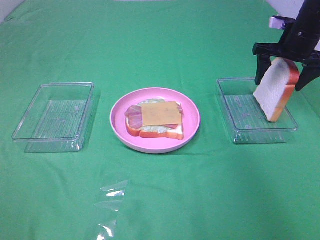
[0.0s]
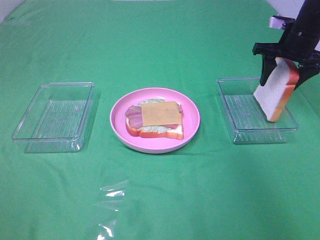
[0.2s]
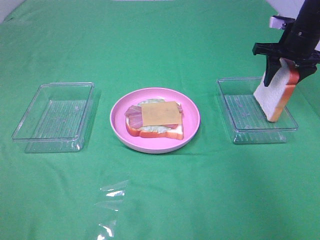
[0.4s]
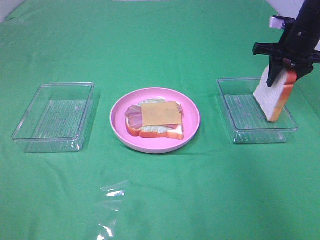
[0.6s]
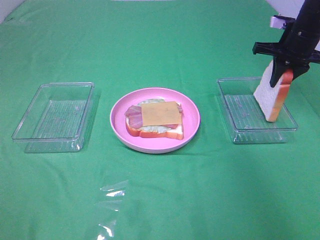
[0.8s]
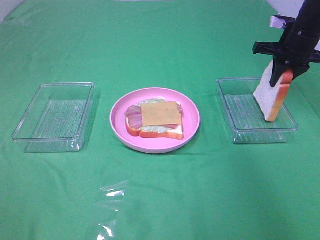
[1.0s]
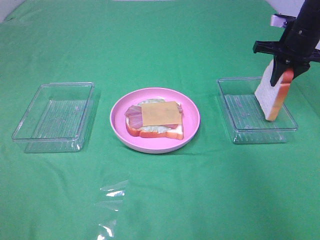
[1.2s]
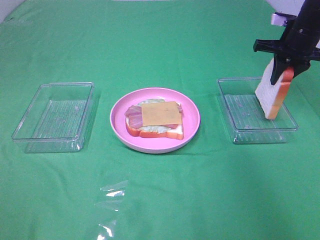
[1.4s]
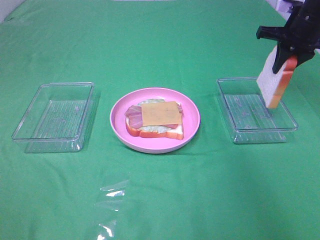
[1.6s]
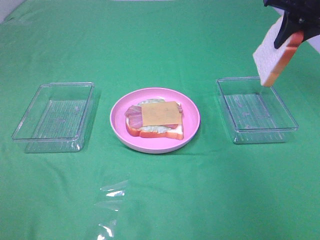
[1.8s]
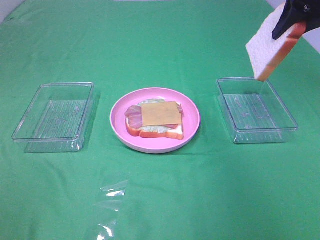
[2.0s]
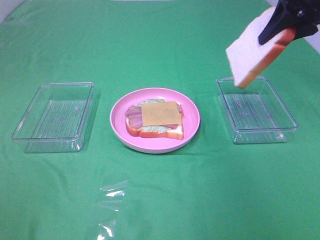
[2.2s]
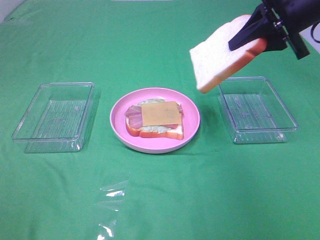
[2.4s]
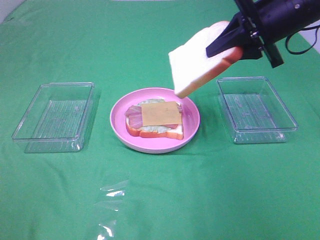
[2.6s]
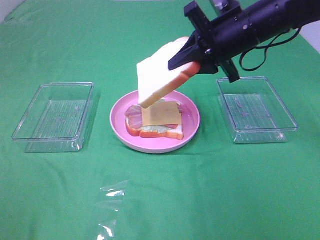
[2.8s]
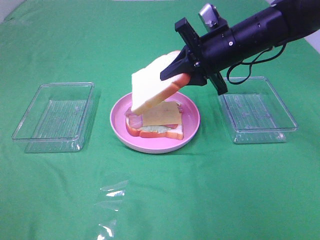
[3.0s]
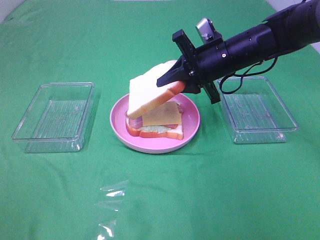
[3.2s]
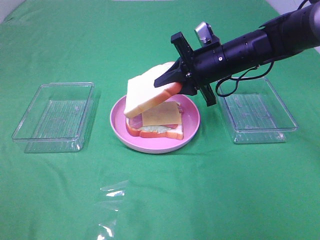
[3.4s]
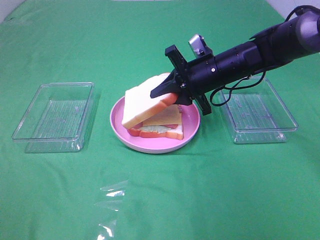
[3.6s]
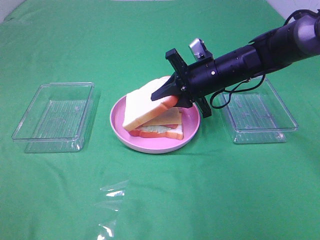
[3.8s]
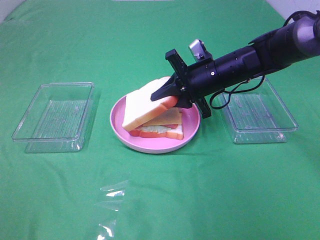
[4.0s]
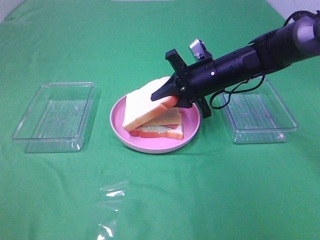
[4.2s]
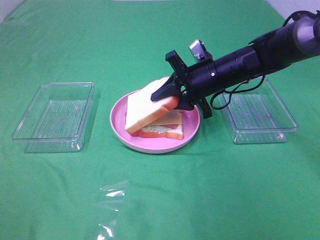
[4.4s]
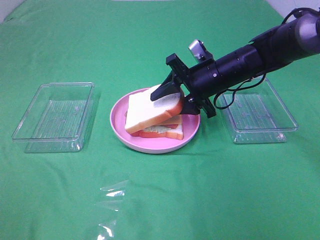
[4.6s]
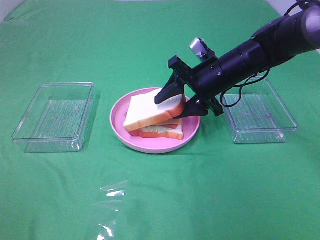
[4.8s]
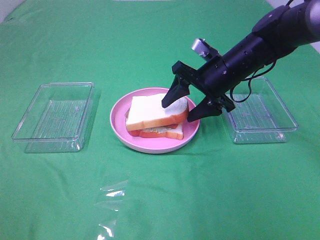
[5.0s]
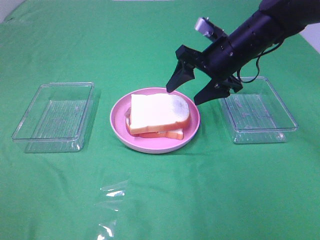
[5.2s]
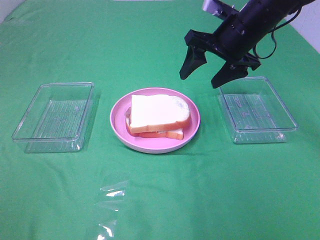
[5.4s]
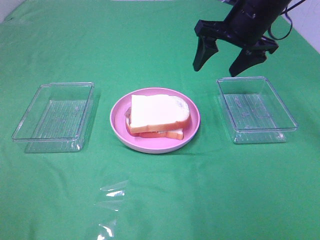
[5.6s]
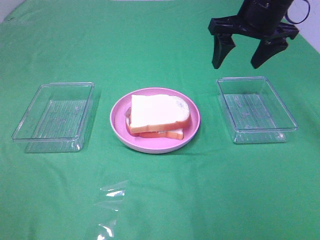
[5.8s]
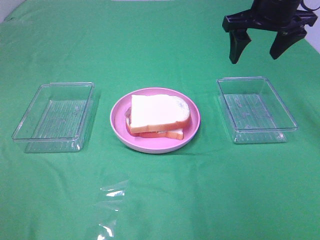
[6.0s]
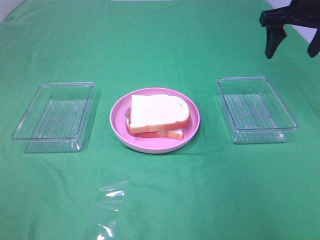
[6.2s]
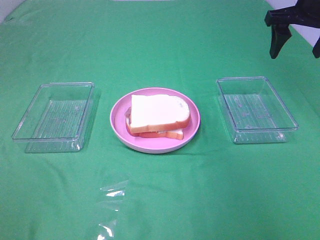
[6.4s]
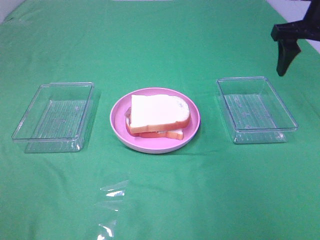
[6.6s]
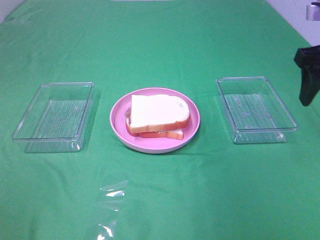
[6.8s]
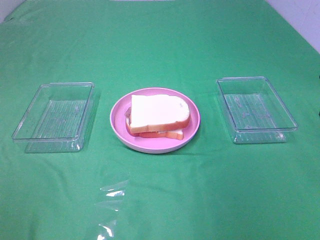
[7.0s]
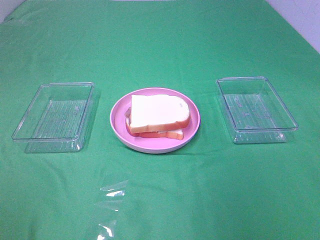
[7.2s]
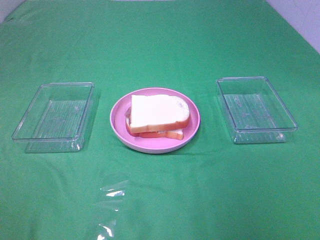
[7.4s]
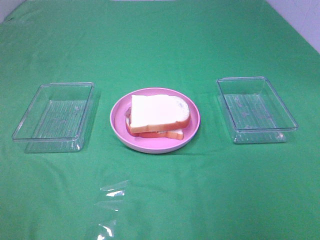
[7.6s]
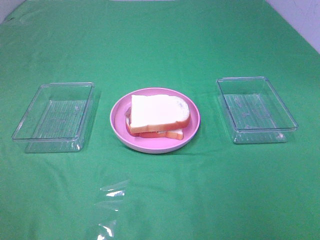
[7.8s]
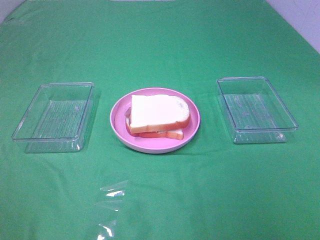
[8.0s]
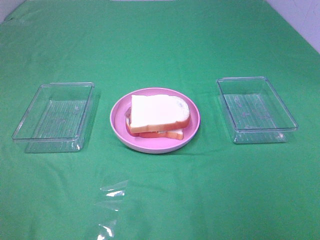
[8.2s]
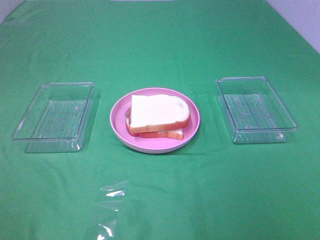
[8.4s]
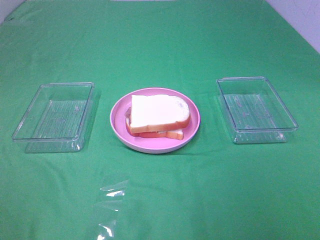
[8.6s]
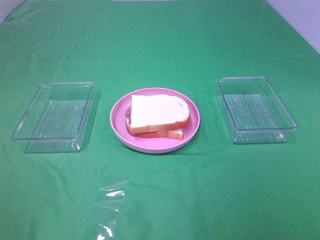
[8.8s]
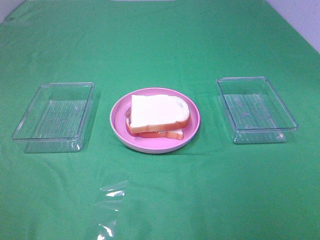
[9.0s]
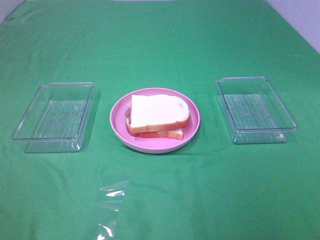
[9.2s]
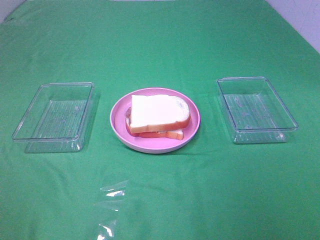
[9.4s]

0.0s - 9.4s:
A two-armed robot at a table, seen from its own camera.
Task of the whole recording: Make sandwiches.
Step, 1.0s - 5.0s: Right hand:place the bread slice on the cheese slice.
0.0s - 1.6s: The right gripper closes up.
1.6s - 3.2s: The right gripper travels to the left, backward and downward by approximately 20 cm.
3.2s - 4.8s: The right gripper opens its fingers.
4.8s - 6.2s: The right gripper heads upward and to the right, covering roughly 20 cm.
6.2s - 7.8s: The right gripper travels backward by roughly 35 cm.

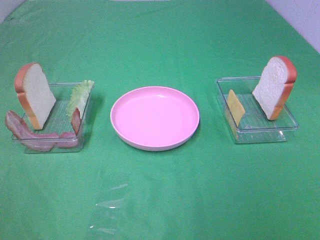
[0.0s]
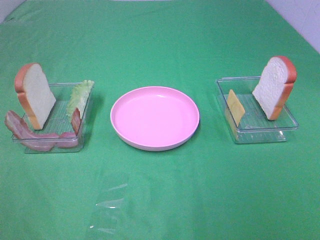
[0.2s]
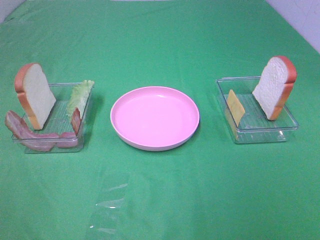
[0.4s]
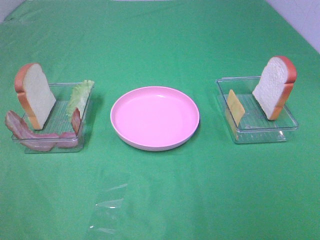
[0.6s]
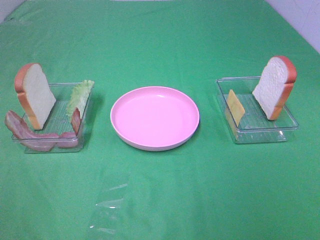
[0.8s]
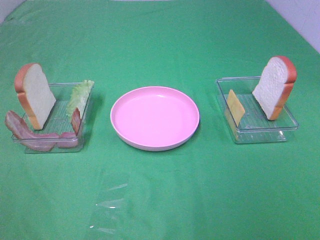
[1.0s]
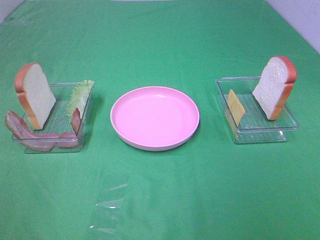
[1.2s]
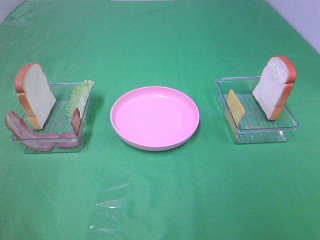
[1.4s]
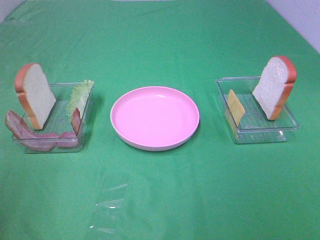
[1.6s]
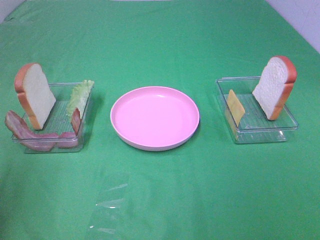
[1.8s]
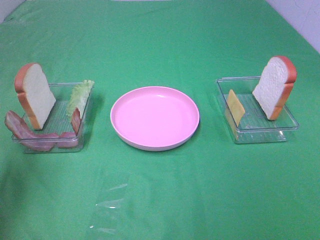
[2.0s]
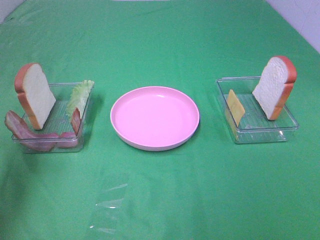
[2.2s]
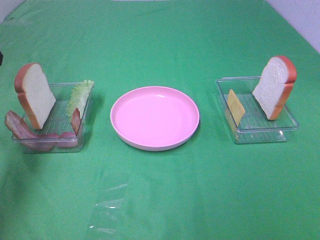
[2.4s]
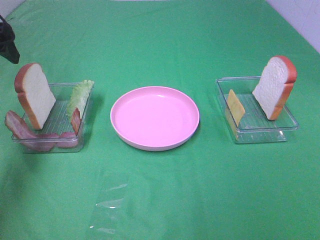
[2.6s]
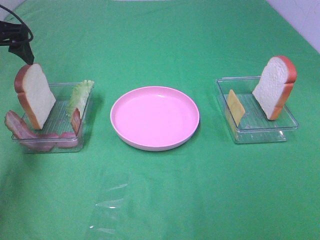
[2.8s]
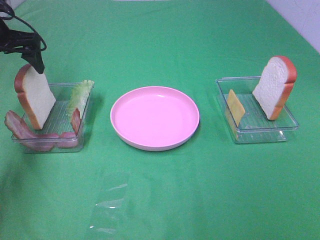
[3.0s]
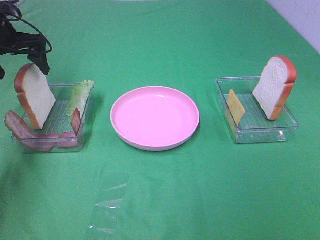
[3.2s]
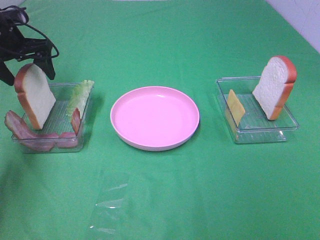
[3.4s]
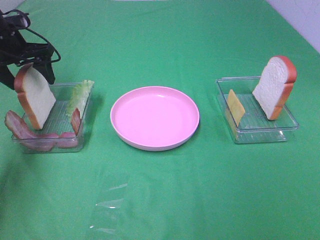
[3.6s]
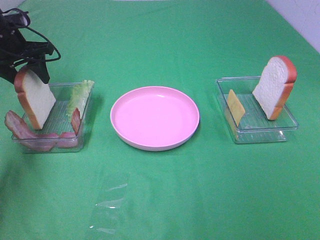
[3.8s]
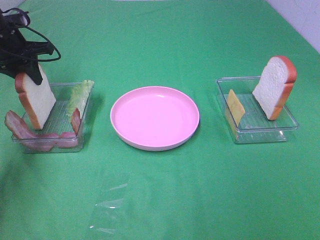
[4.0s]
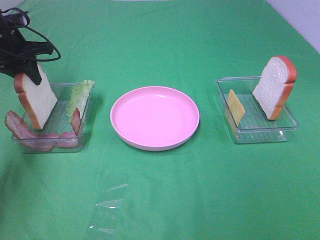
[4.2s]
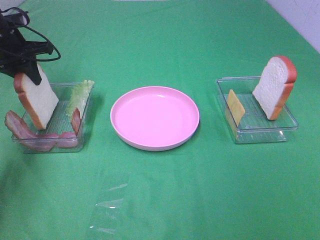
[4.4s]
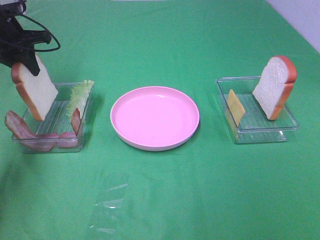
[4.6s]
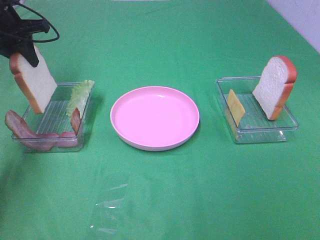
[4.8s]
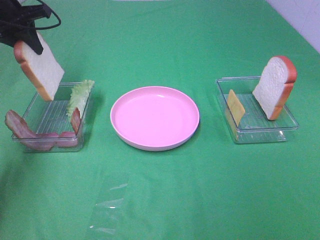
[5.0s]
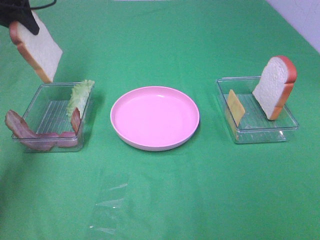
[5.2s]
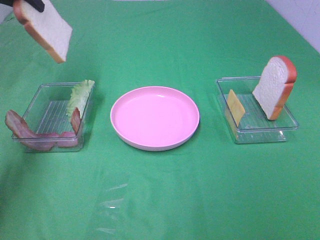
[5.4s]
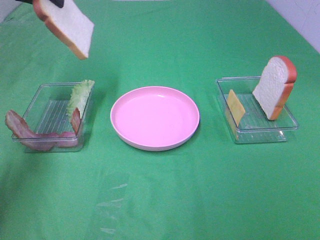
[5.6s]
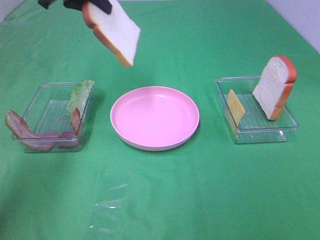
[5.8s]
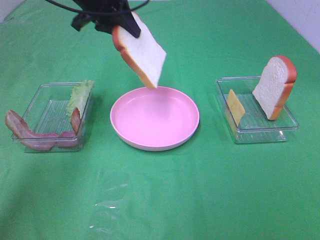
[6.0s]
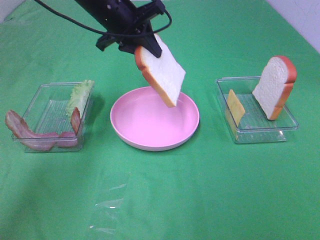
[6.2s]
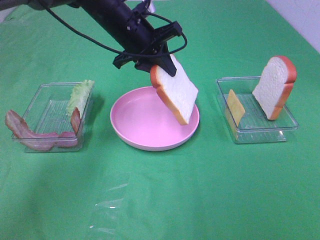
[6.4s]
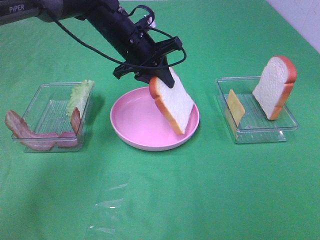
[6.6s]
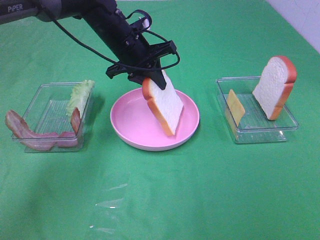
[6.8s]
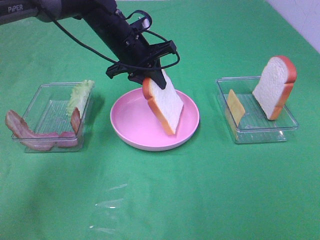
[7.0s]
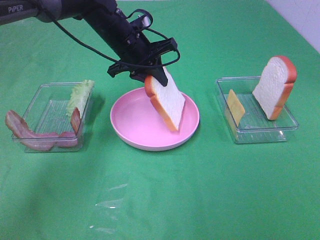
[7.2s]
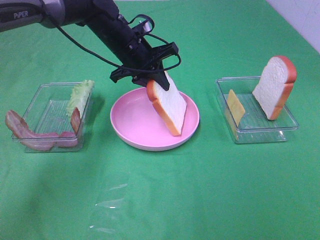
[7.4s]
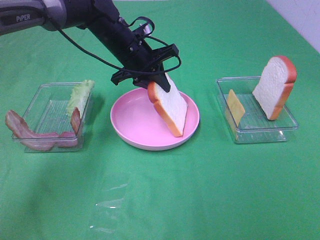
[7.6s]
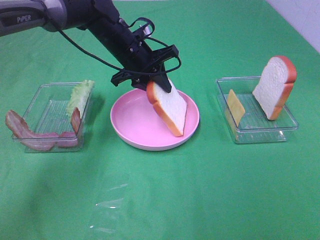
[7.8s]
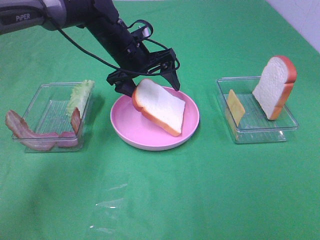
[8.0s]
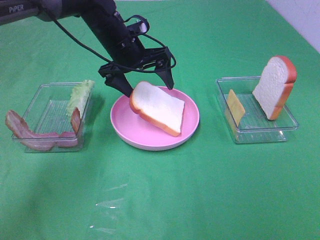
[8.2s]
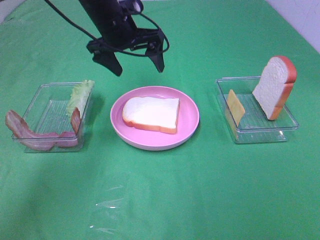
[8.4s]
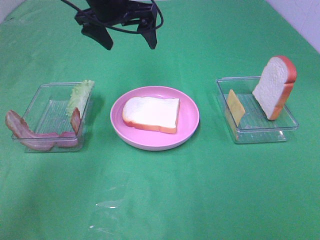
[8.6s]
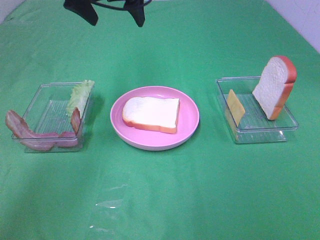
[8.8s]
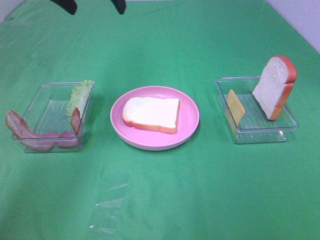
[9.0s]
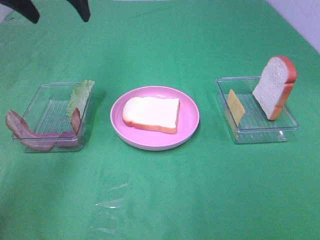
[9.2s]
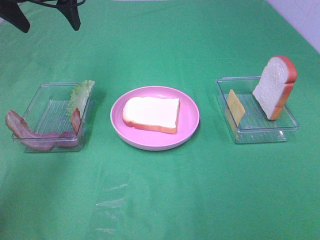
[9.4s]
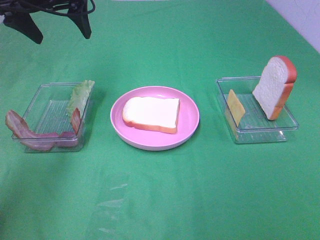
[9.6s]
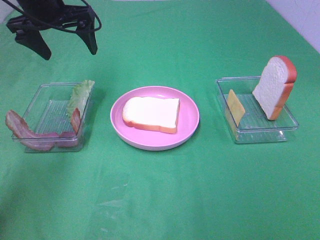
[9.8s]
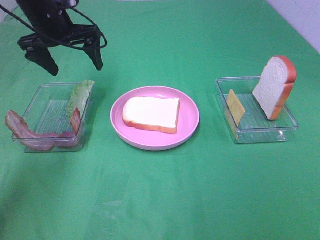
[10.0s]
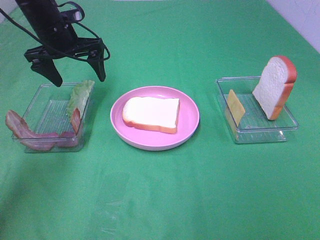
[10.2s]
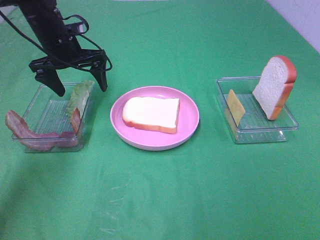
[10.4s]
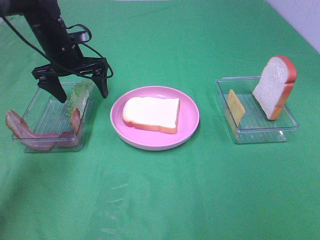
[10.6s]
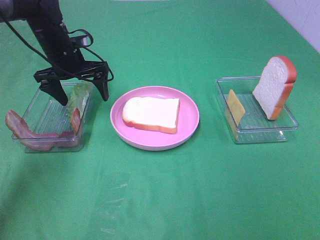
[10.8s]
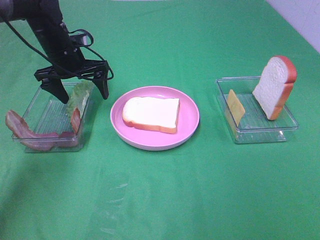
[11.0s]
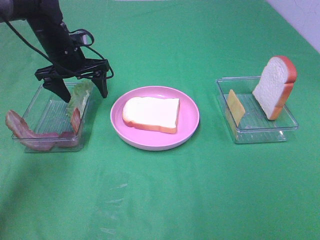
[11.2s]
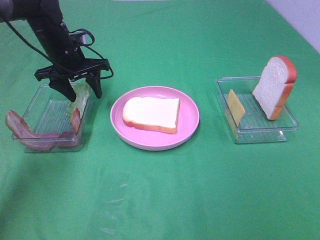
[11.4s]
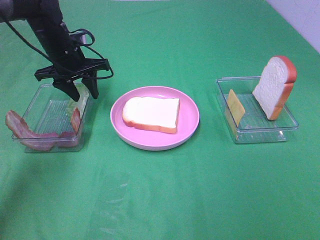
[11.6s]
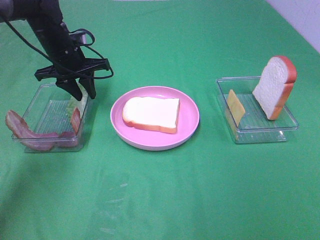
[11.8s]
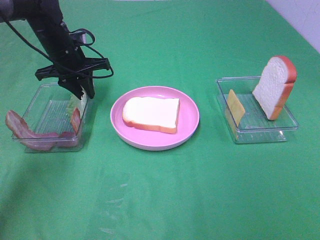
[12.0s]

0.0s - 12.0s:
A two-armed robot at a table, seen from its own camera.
Task of the whole recording: Make sandwiches.
Step, 0.0s - 4.2s: Left hand:grab the bread slice.
Step, 4.4s - 8.2s: Left hand:place the bread slice on the plate.
1.6s - 3.0s: The left gripper travels forward by roughly 35 cm.
3.0s - 4.4s: The left gripper closes up.
4.4s - 6.0s: The left gripper goes roughly 20 cm to the right and upward.
6.0s - 7.6s: The left gripper is displaced downward and to the right by some 15 cm.
7.6s - 9.0s: The left gripper goes about 20 cm upward and to the left, and opens up.
9.0s - 10.4s: The left gripper shifts some 15 cm downward.
10.4s - 12.0s: The left gripper closes its fingers.

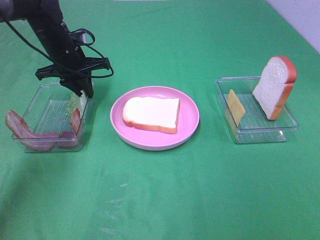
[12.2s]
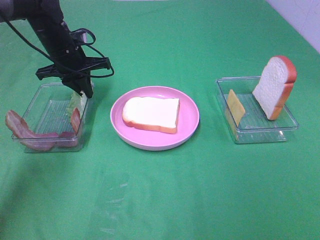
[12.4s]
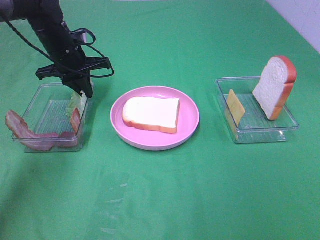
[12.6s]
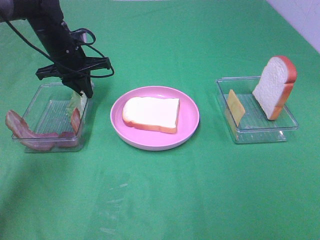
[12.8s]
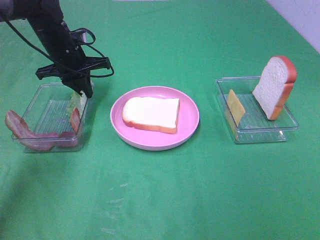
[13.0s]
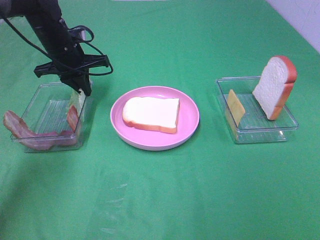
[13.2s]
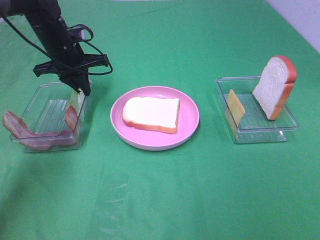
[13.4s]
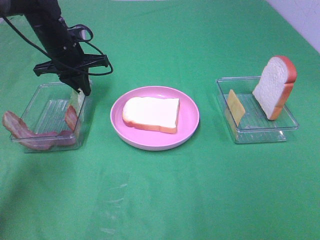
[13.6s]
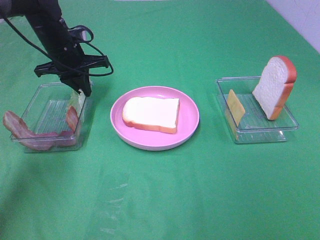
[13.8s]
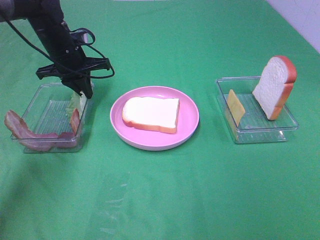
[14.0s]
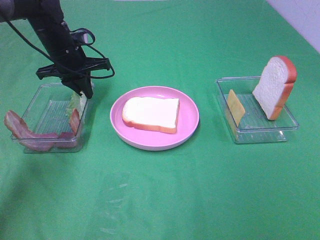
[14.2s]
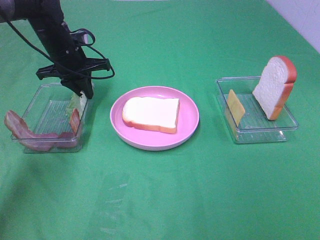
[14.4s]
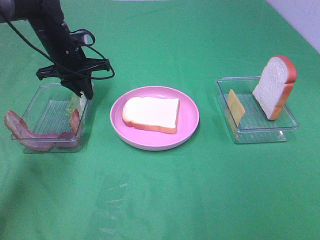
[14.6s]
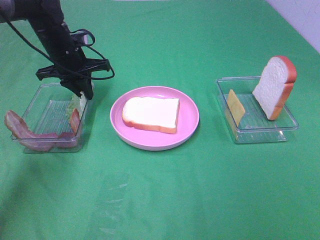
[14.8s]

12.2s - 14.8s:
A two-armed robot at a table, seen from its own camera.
Task of the whole recording: Make sandwiches.
12.2s - 14.8s: Neither gripper changes place.
